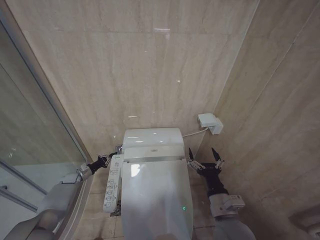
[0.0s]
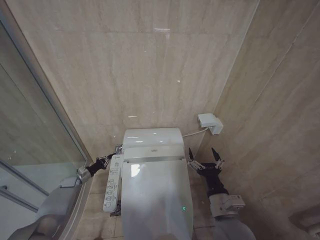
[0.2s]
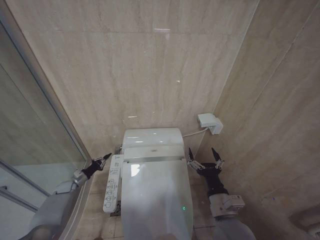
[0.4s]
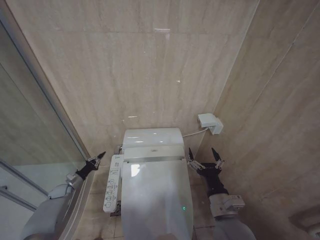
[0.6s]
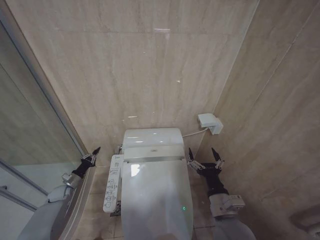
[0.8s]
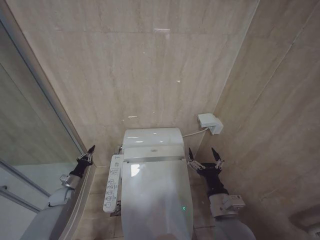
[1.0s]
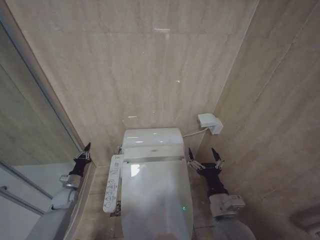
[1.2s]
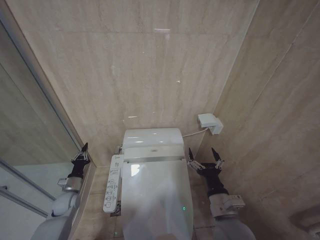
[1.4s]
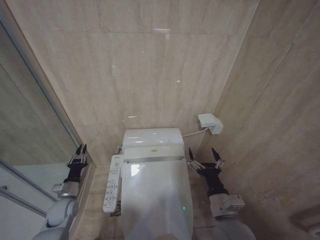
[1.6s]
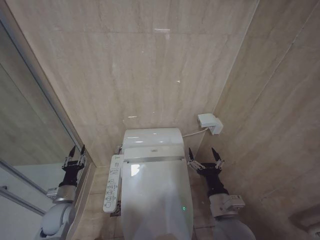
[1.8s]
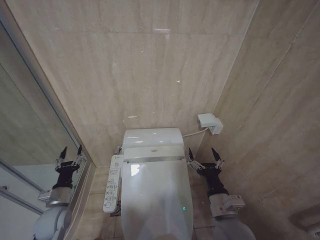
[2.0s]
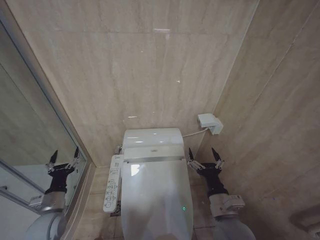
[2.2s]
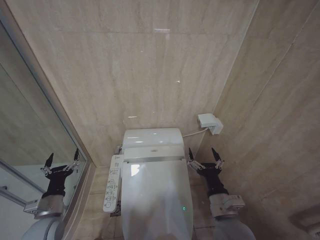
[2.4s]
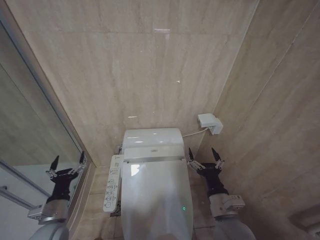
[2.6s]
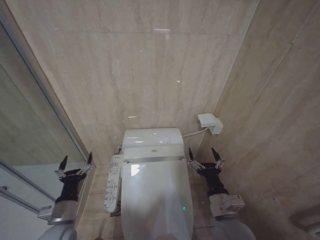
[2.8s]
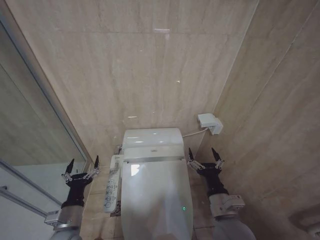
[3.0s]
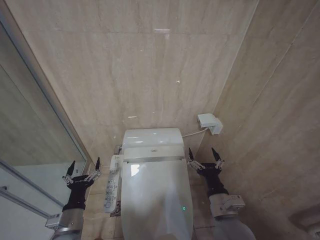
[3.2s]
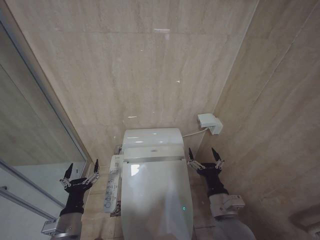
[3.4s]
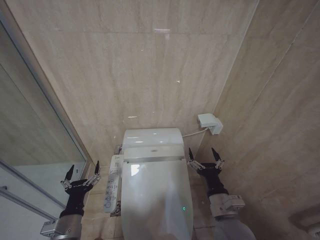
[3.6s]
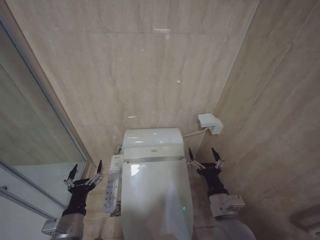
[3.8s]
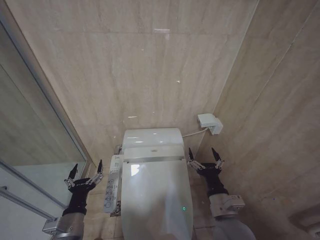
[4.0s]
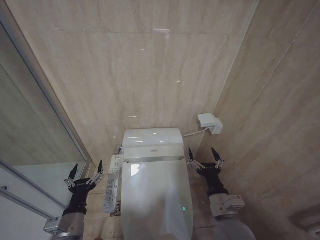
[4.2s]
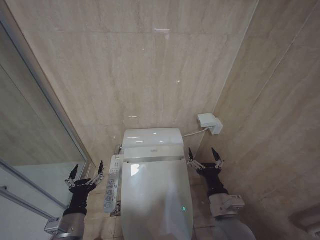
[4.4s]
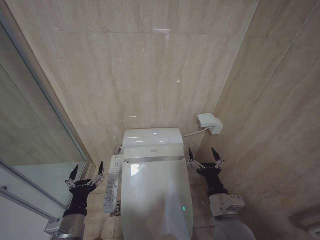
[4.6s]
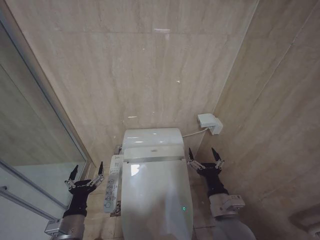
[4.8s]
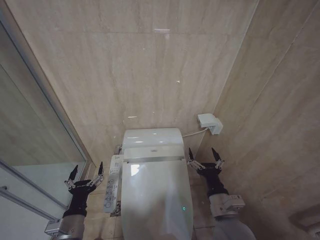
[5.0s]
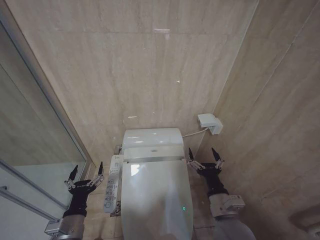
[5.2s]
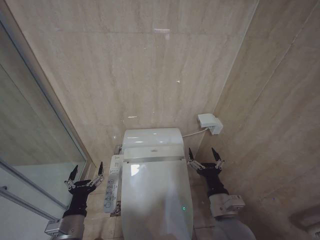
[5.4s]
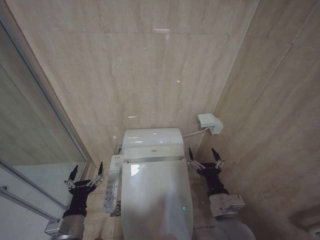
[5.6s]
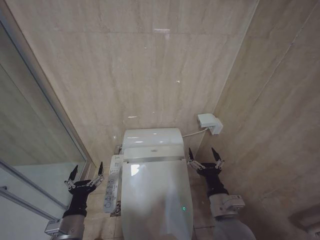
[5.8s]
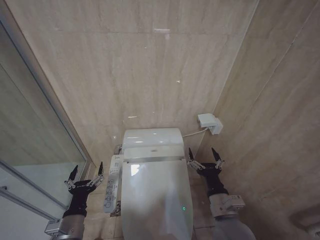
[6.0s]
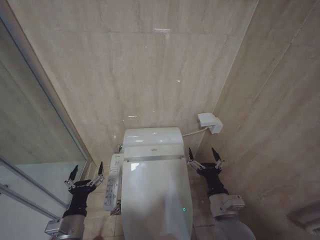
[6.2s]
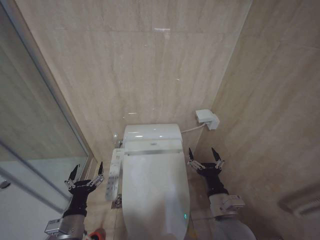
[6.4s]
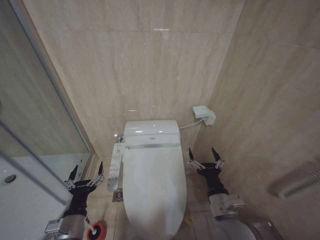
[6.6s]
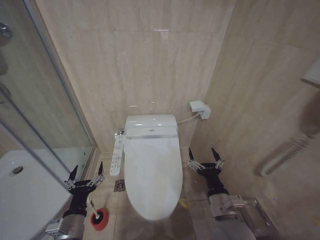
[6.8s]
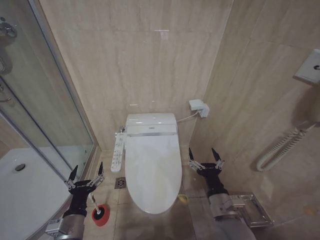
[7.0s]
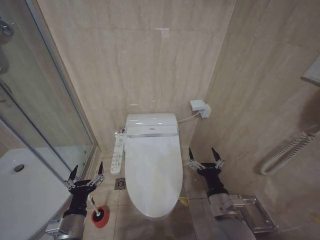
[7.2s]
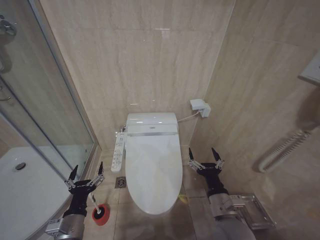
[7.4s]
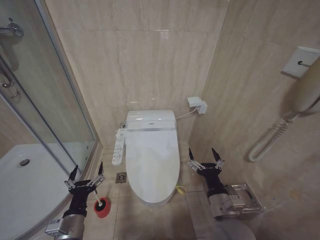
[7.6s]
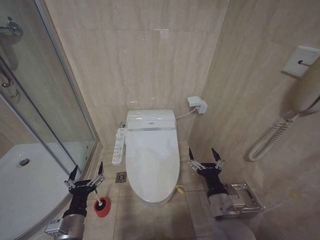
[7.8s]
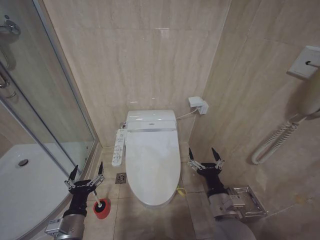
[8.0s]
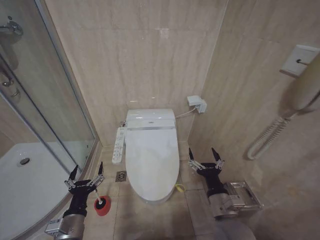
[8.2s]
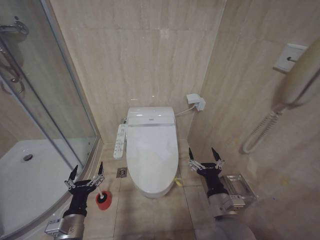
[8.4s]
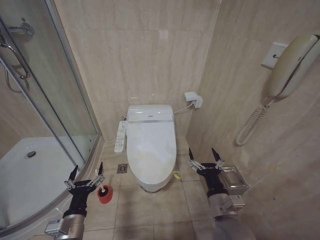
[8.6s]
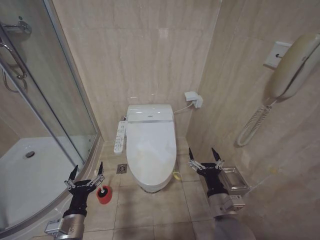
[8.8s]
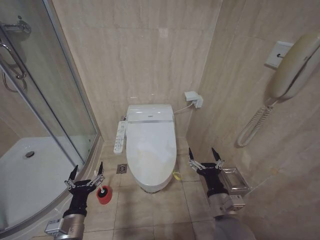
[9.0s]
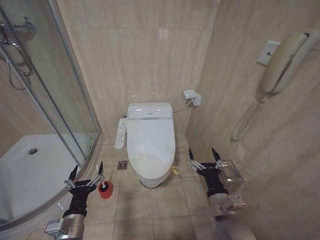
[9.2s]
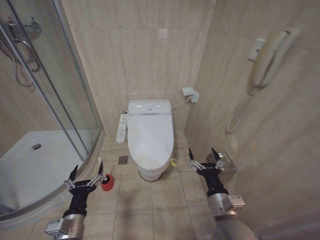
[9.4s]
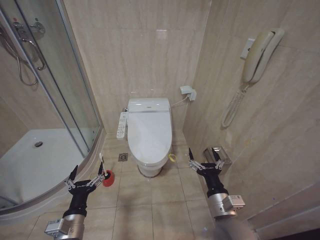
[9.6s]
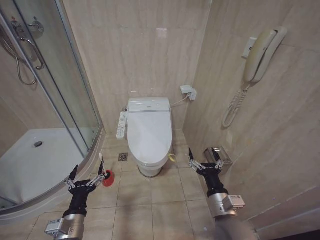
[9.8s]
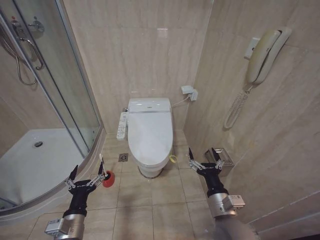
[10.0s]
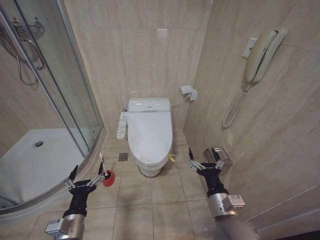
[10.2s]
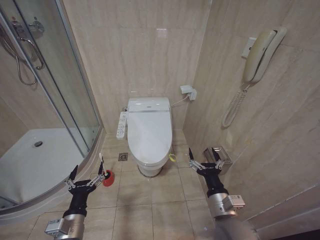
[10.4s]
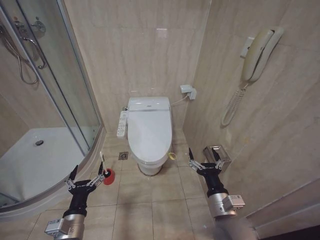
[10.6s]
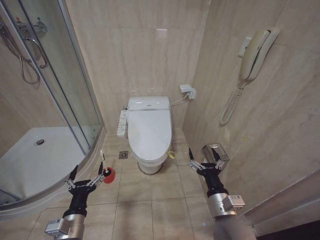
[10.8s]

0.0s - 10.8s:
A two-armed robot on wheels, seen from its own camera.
Task of the whole recording: Open the toilet lid, clean the toilet bowl with a toilet brush, close the toilet lid, and flush.
0.0s - 1.6s: The left gripper heads backward and to the right, covering some 15 cm.
1.6s - 3.0s: The left gripper moves backward, to the right and upward, roughly 20 cm, and opens up.
3.0s - 4.6s: There are only small adjustments of the grippers.
4.6s - 10.8s: Both grippers stay put.

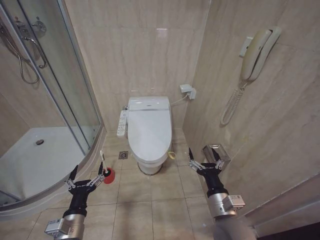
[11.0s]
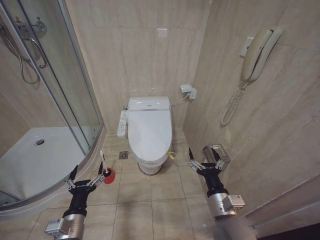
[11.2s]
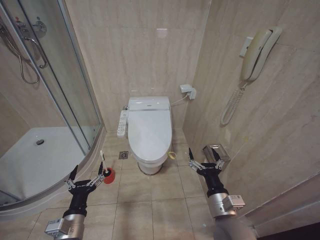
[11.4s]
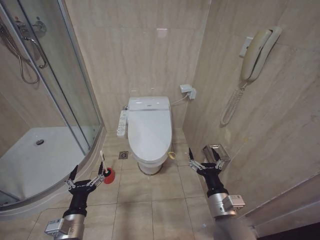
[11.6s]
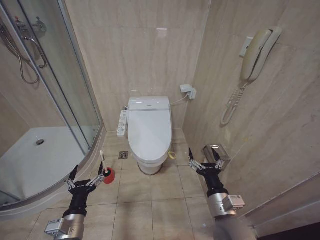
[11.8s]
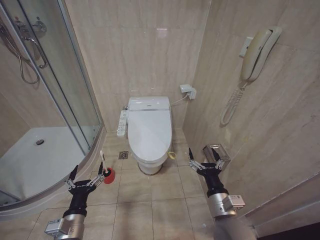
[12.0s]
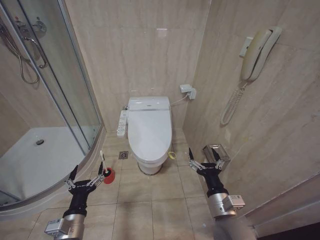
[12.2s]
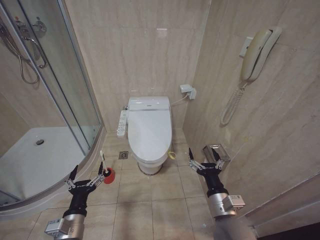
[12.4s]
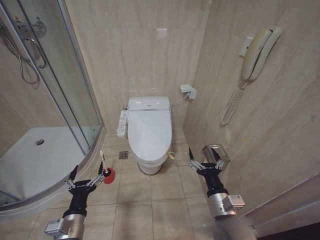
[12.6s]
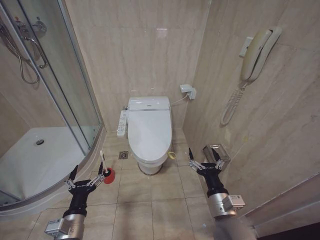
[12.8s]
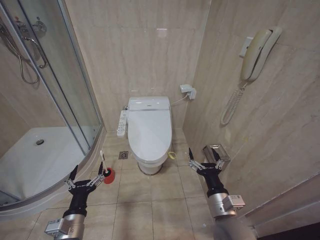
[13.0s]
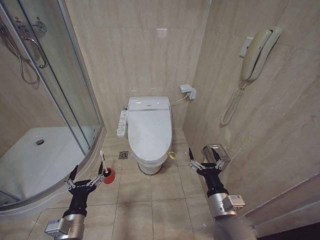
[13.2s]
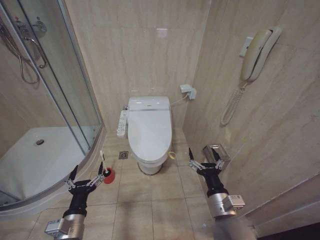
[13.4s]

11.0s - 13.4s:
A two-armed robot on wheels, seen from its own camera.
Task of the whole recording: Open the toilet lid, clean the toilet bowl with a toilet brush, close the toilet lid, and flush.
11.0s - 13.4s: Neither gripper changes place.

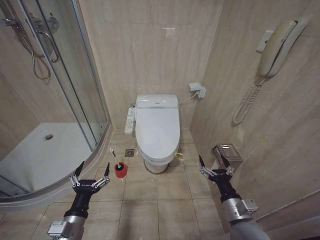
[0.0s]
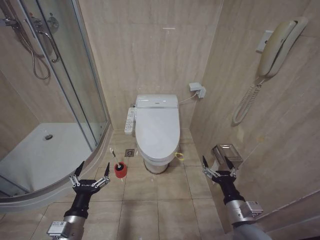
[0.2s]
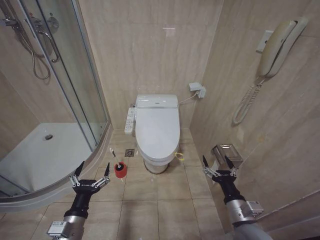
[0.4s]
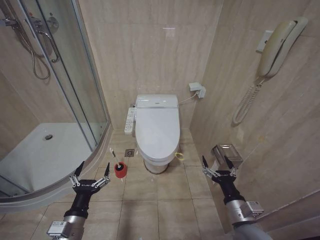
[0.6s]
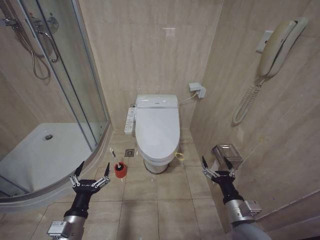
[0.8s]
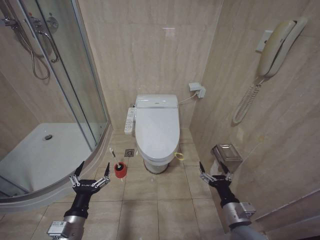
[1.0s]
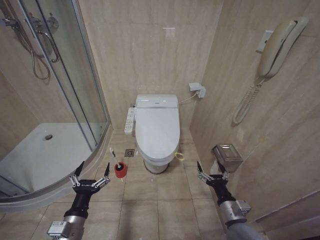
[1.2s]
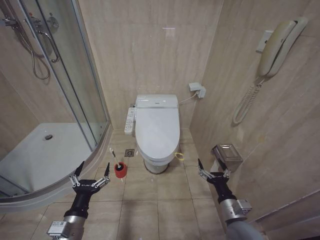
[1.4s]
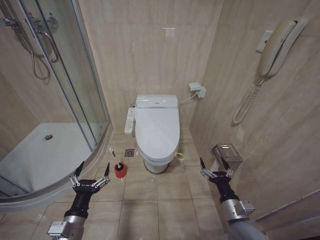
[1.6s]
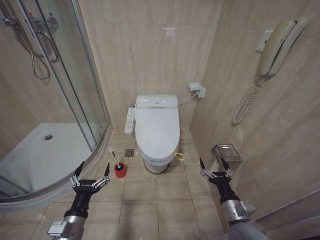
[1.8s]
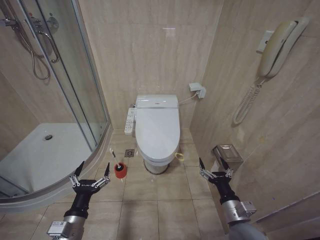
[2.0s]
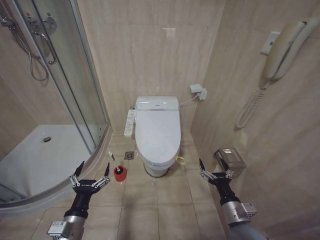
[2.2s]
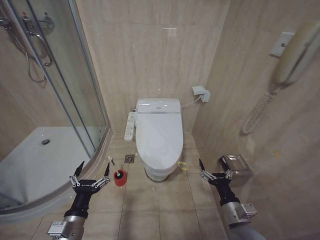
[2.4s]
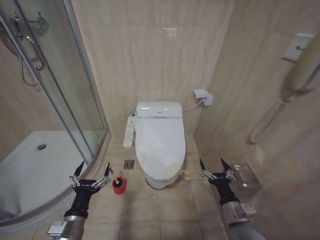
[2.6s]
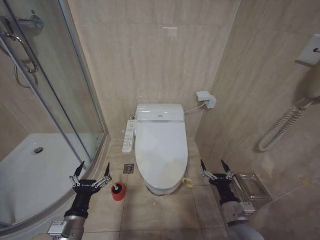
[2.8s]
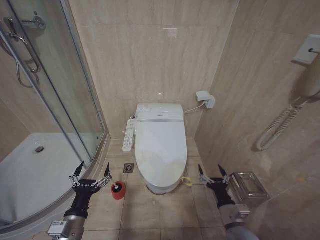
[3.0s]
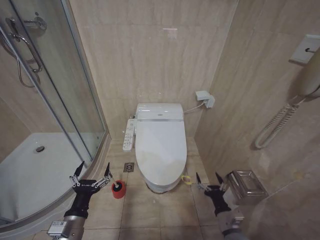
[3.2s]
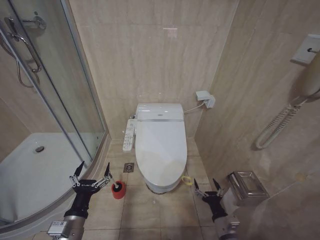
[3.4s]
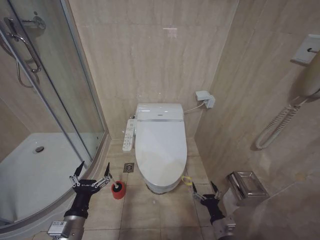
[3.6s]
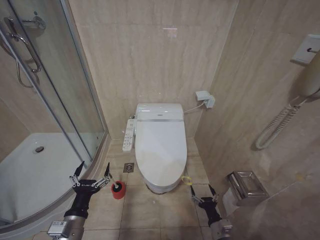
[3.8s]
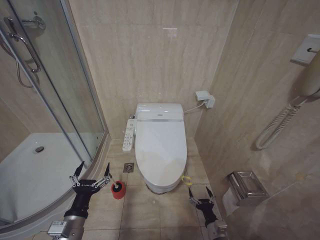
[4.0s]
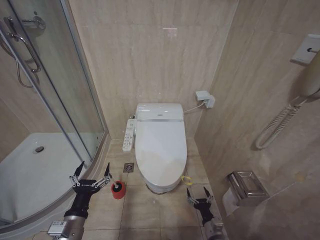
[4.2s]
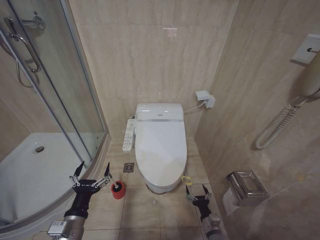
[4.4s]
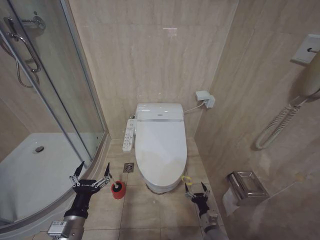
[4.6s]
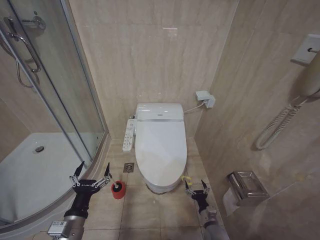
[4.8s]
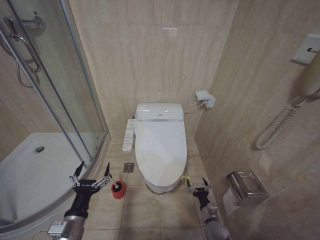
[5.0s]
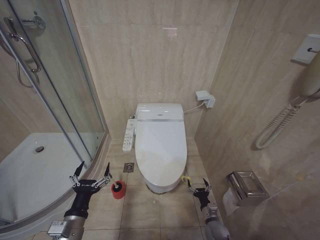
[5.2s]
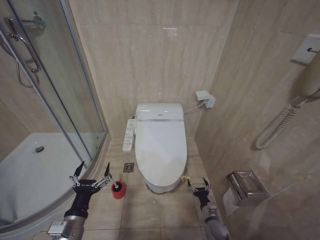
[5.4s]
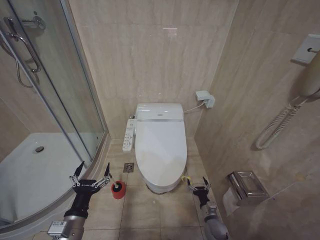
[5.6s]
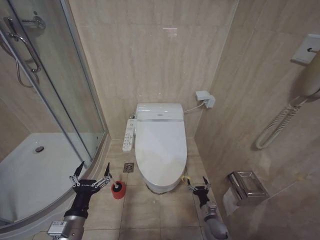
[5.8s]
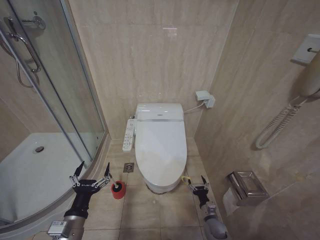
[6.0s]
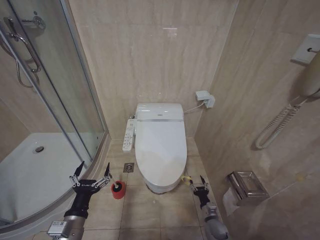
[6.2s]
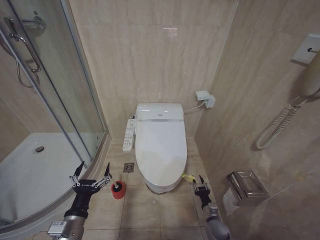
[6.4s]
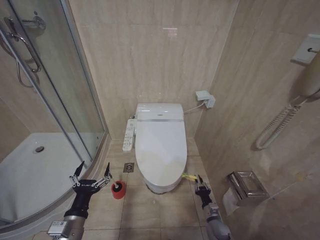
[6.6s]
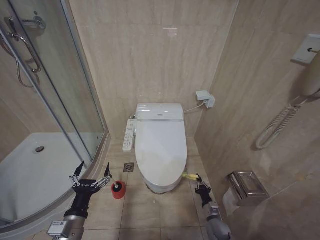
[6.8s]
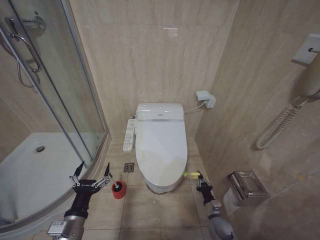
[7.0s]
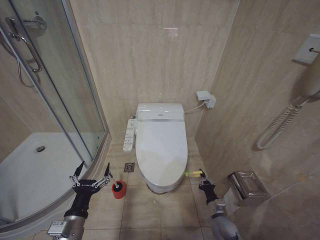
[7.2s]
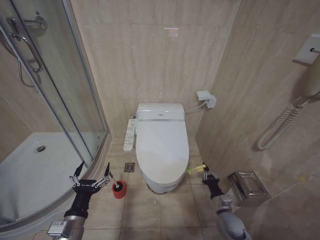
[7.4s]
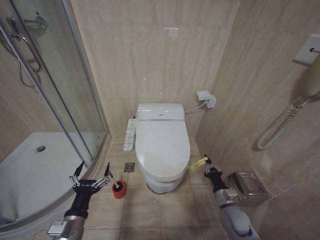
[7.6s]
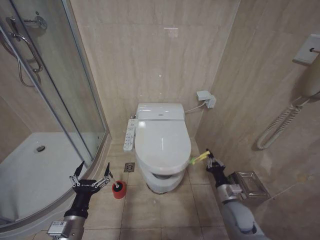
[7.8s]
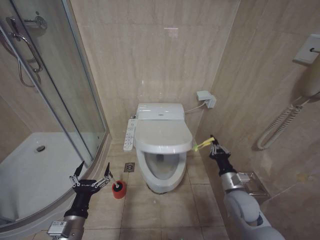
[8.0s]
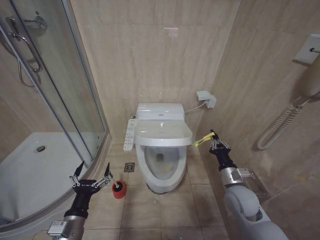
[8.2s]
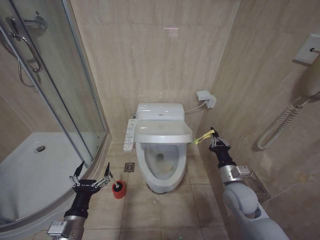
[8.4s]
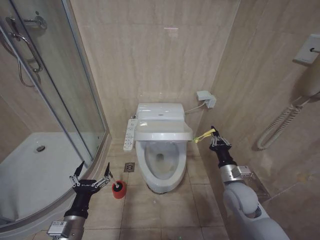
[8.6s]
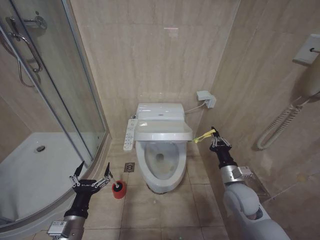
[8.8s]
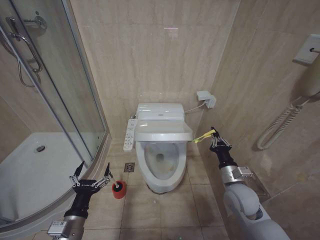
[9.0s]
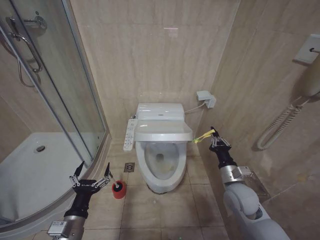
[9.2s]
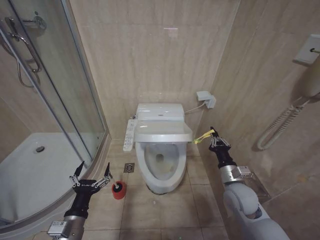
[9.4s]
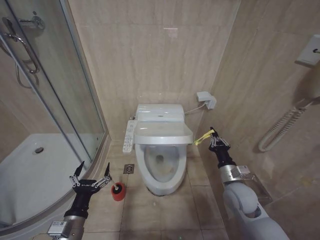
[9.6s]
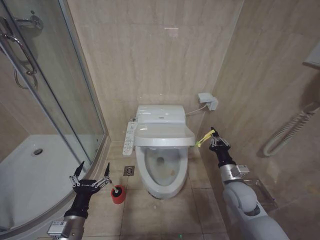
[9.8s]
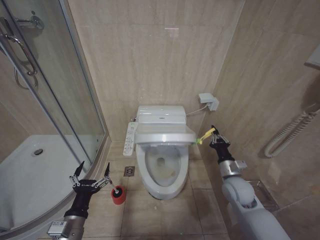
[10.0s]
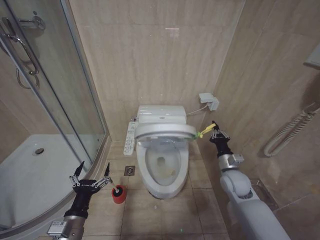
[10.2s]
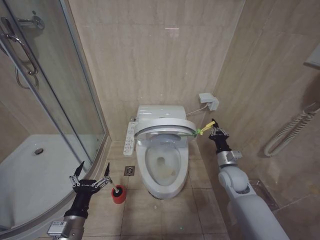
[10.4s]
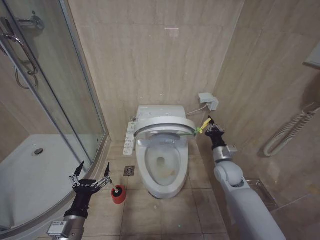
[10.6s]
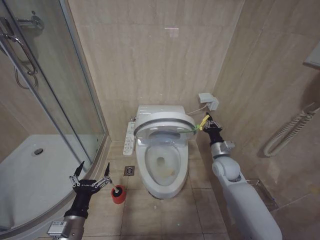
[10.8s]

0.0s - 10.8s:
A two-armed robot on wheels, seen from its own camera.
Task of the whole recording: Open the toilet lid, clean the toilet bowl with a toilet brush, close the toilet lid, and flush.
1.6s - 3.0s: The grippers stay close to where they were, moving slightly.
3.0s - 4.6s: The right gripper moves downward, roughly 20 cm.
6.2s - 7.8s: The right gripper moves upward, approximately 20 cm, and closes up.
7.8s - 9.2s: The right gripper is displaced upward by roughly 10 cm.
9.2s - 10.8s: The right gripper is displaced forward by roughly 10 cm.
